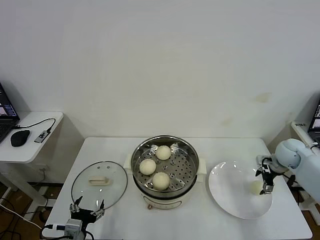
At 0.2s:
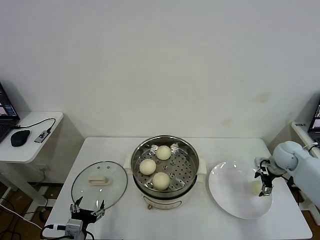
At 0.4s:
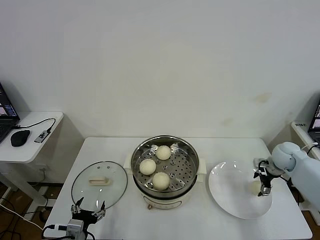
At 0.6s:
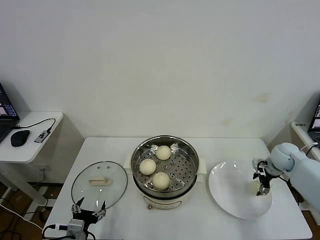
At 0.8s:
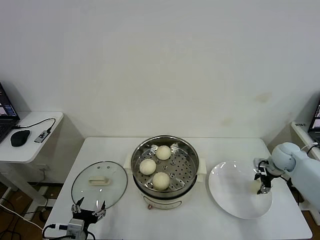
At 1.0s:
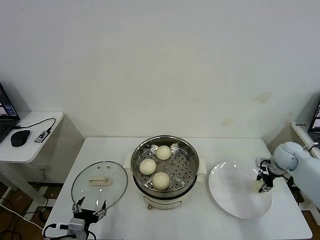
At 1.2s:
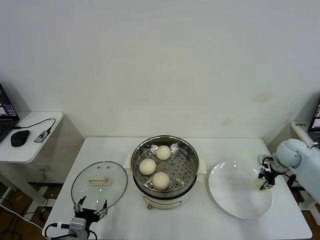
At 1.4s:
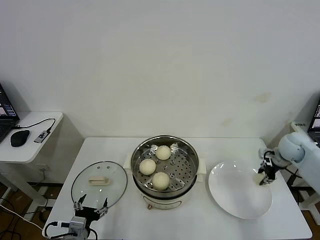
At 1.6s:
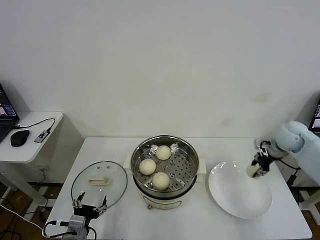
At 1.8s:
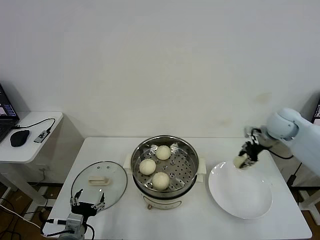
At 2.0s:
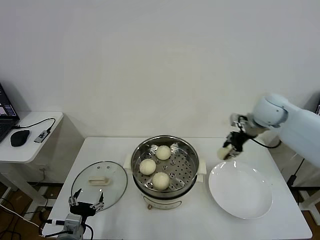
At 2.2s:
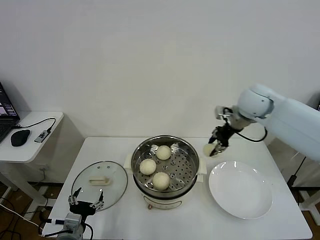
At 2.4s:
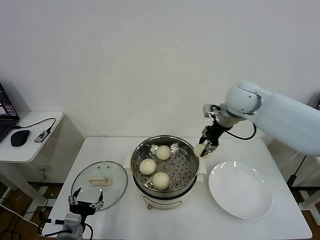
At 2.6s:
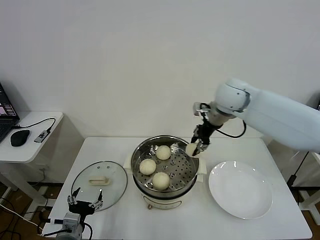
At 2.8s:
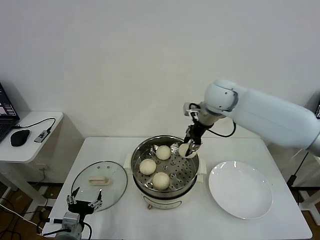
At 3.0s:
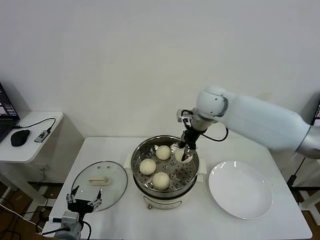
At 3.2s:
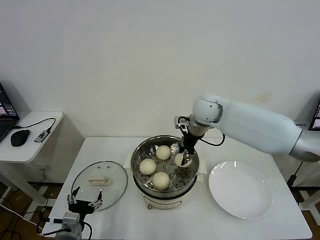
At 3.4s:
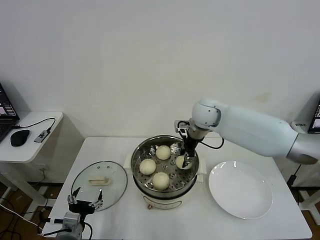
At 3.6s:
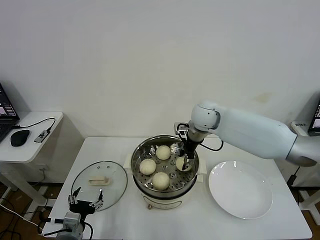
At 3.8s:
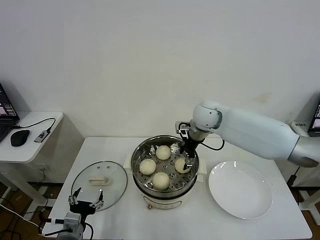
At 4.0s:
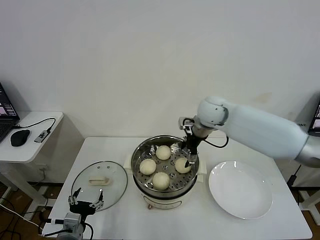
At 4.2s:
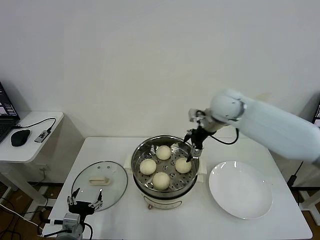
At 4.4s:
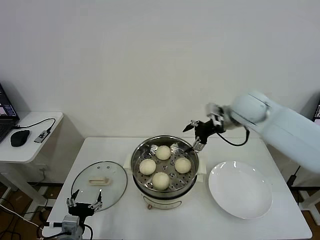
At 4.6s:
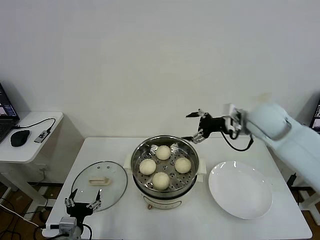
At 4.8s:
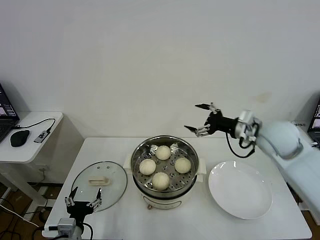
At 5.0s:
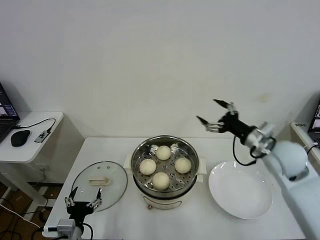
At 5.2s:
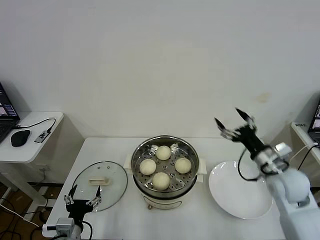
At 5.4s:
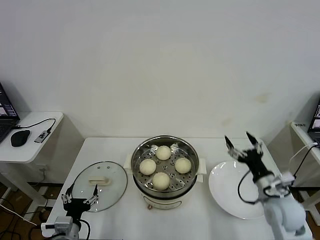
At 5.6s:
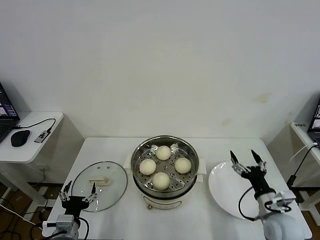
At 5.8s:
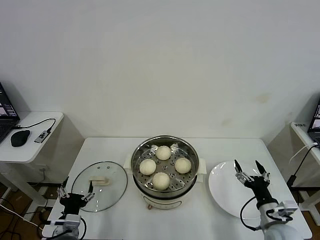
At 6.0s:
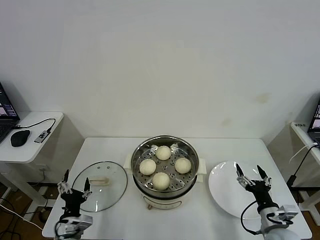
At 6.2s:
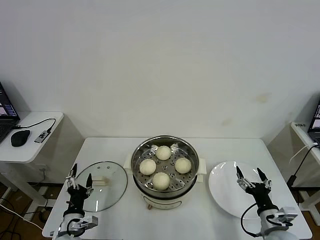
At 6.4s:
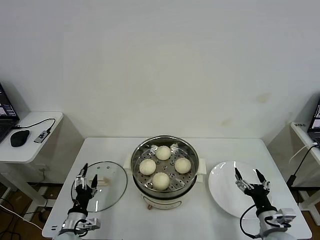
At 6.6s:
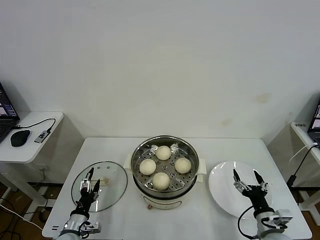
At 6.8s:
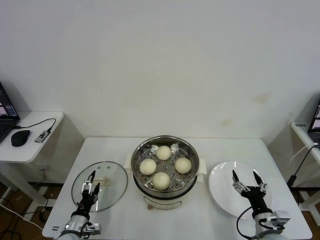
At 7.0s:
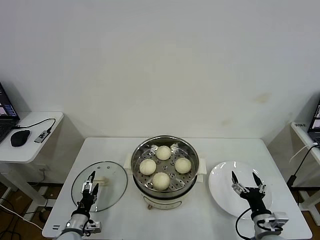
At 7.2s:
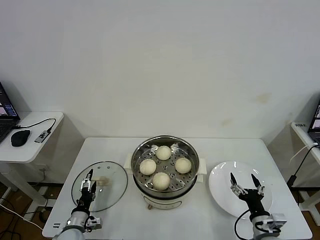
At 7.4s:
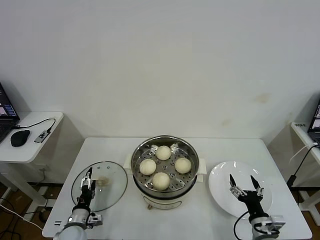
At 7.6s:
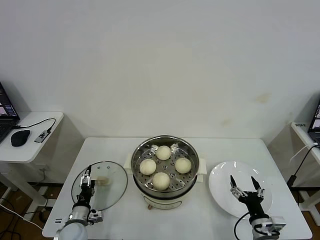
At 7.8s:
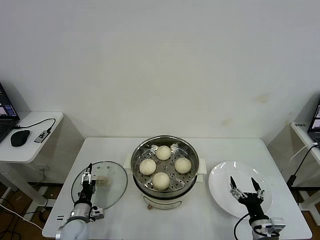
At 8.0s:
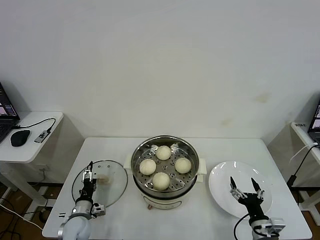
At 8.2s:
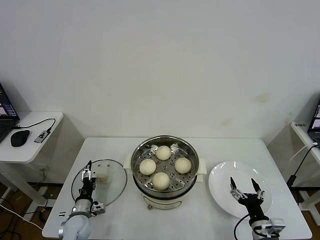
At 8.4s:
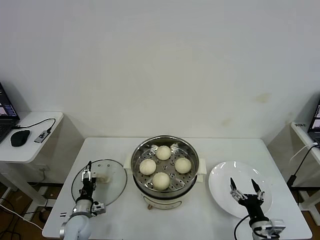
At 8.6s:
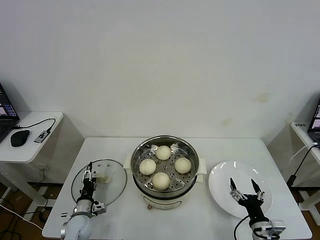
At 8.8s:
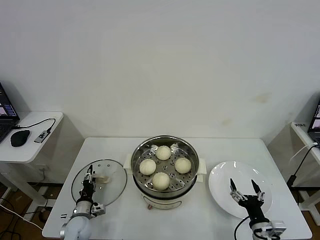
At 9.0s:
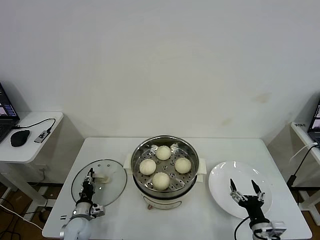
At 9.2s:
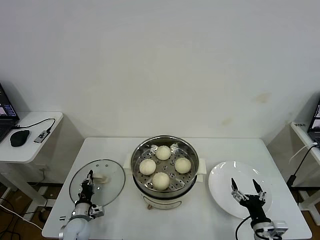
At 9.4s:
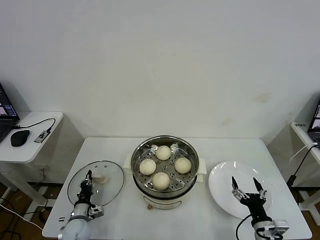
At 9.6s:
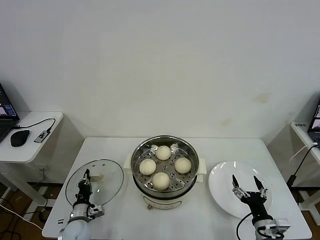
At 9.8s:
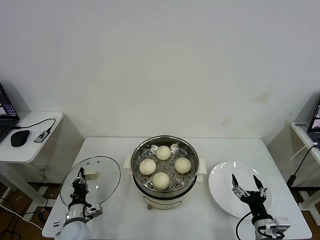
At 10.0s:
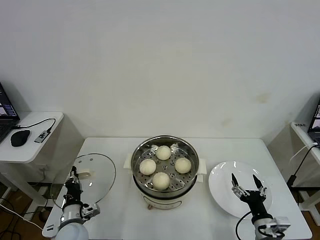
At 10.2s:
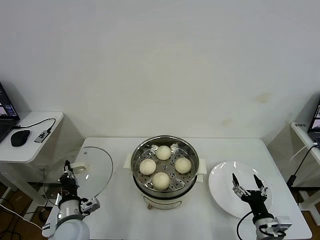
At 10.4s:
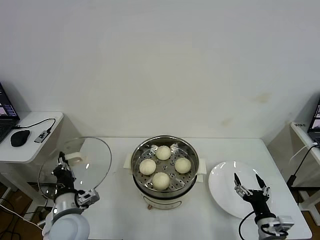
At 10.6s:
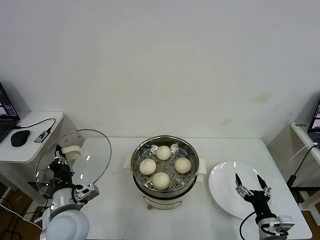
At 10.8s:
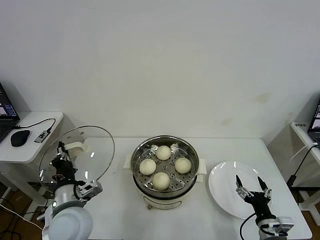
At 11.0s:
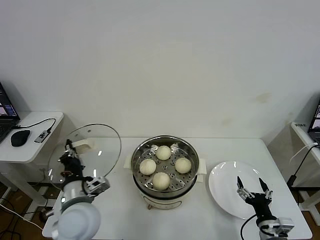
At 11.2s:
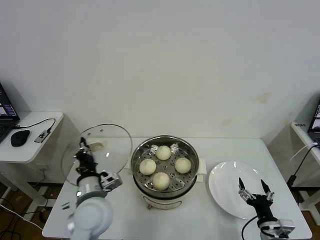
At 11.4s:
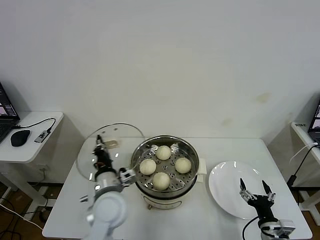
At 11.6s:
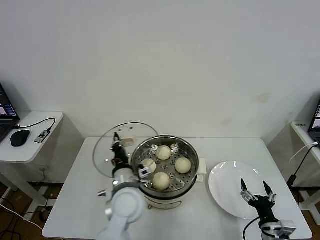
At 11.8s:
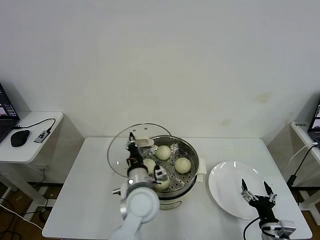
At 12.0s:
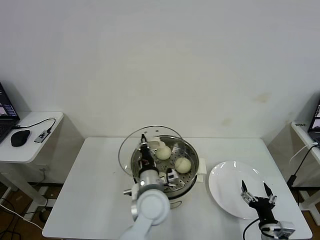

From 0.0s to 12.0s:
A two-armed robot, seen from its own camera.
Task of the whole recording: take steamed baozi put them in steamer then cover it.
Step, from 1.4s to 4.2s: Place the baozi on the steamer with right gripper.
Step, from 4.4s to 9.4s: Grasp the pot lid with left gripper.
From 0.0s to 1.6s: The right gripper shifts about 10 cm upward, and closes its fingers.
From 1.6s to 3.0s: The right gripper heads to the left, covering roughly 30 cm.
From 3.0s to 4.4s: The right gripper goes some 10 cm to the right, and opens.
From 4.4s to 6.0s: The right gripper heads backward and downward, covering some 40 cm.
From 6.0s to 7.6s: The left gripper shifts some 10 cm downward and forward.
From 7.6s to 9.0s: The left gripper closes its fingers.
From 9.0s to 10.4s: The left gripper shifts approximately 20 cm upward, and closes up.
From 10.4s to 12.0s: The left gripper moves to the right, roughly 20 cm.

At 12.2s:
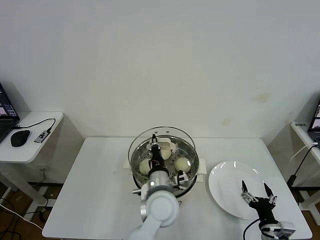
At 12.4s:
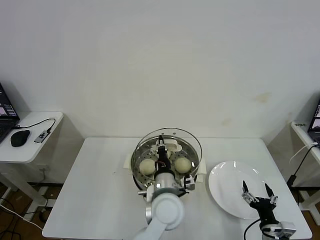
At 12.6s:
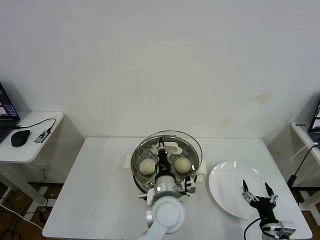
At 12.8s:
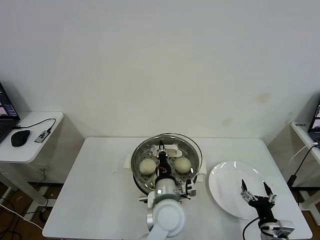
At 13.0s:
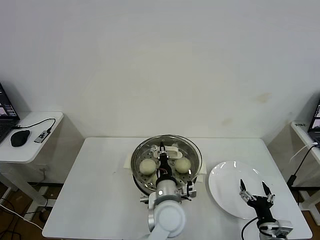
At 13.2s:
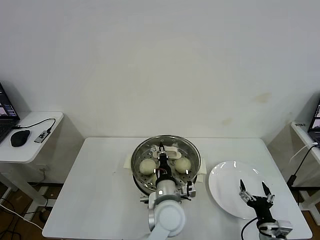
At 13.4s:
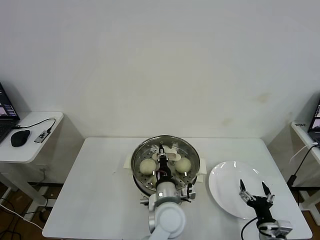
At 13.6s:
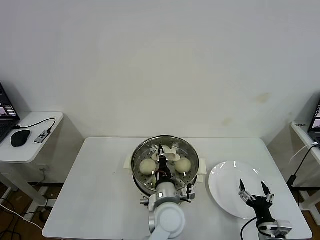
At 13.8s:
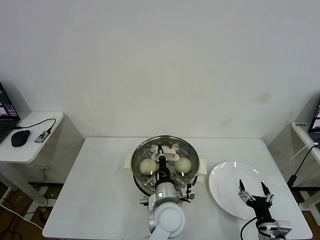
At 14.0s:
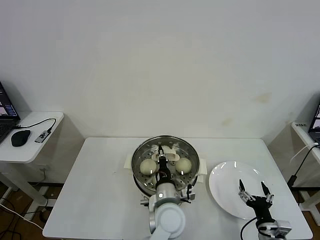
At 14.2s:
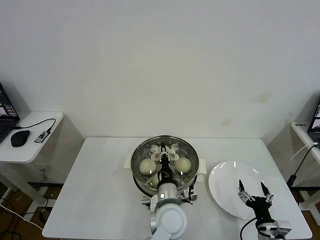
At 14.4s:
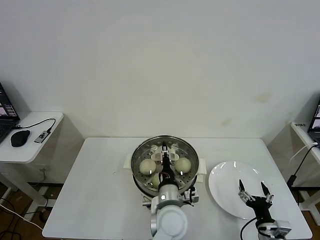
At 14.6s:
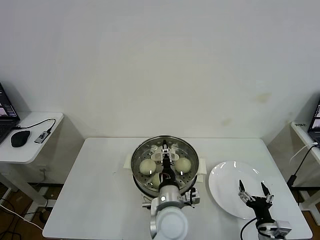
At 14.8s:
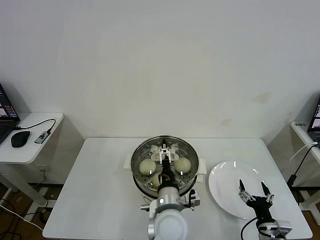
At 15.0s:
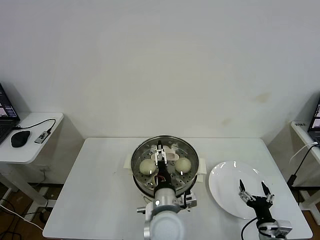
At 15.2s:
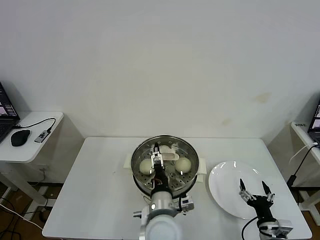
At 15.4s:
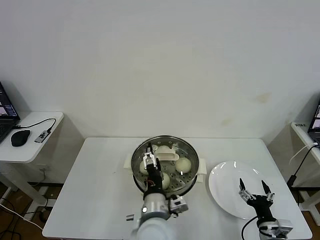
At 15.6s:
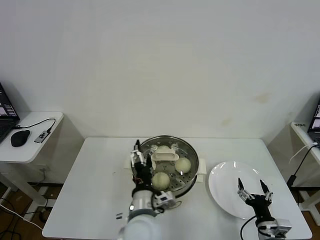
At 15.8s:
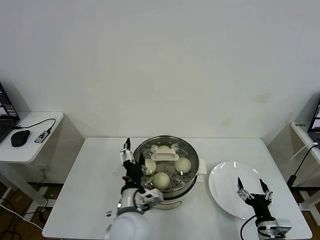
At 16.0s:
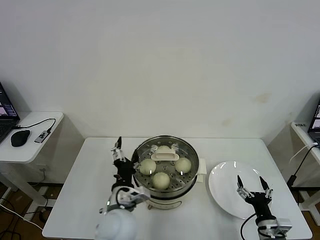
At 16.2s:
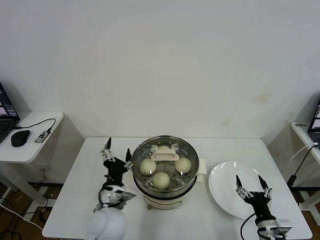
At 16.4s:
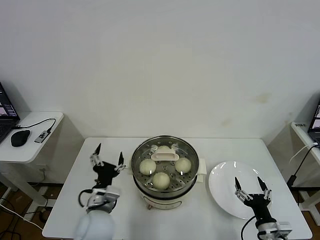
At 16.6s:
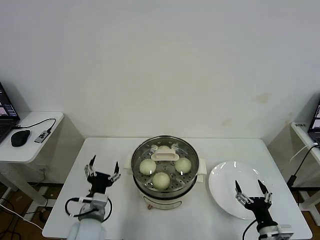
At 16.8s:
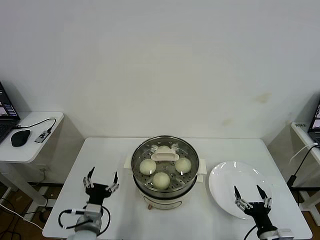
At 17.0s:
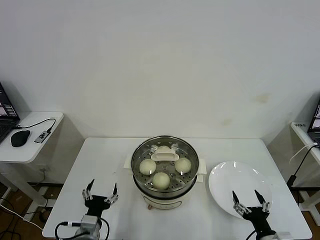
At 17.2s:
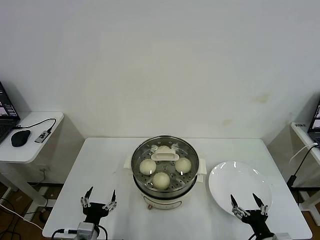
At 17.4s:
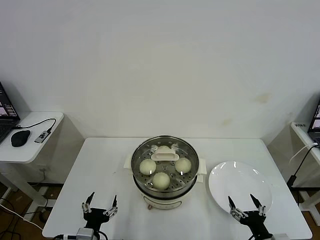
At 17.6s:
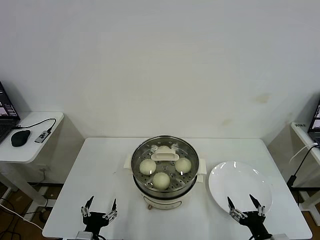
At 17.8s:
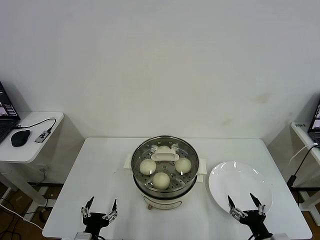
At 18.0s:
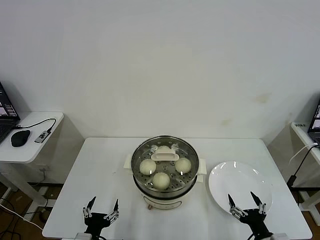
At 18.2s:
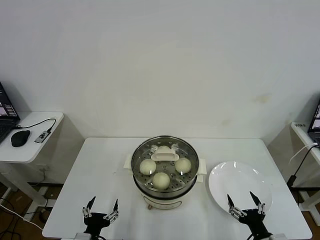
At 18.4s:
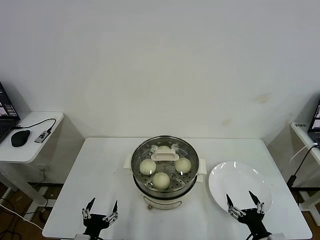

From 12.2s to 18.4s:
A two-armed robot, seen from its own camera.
Task of the whole recording: take steamed baozi put them in steamer then cover it.
Step, from 12.2s to 15.0s: Place the pot lid on the steamer with left gripper.
From 12.2s to 13.8s: The grippers make only small movements.
From 13.8s to 15.4s: The left gripper moves backward, roughly 5 cm, and opens up.
From 15.4s to 16.8s: The left gripper goes some 20 cm to the left.
From 16.8s to 18.4s: The left gripper travels backward by approximately 10 cm.

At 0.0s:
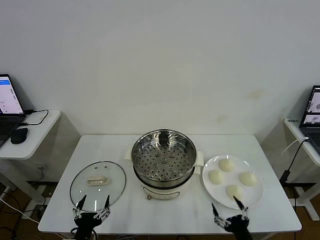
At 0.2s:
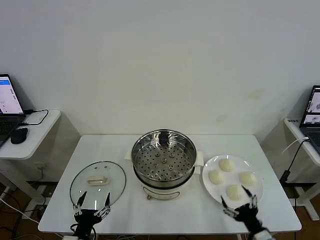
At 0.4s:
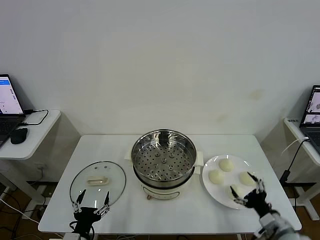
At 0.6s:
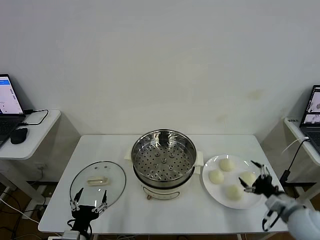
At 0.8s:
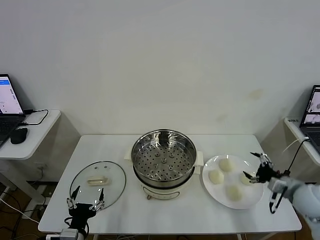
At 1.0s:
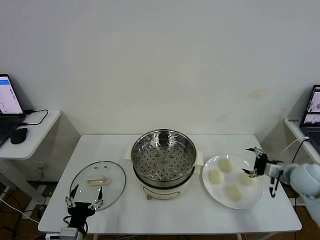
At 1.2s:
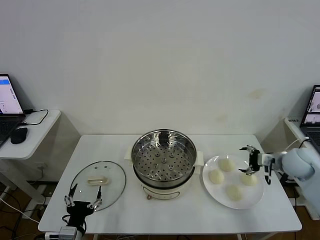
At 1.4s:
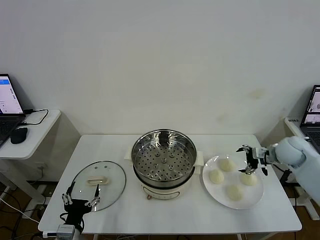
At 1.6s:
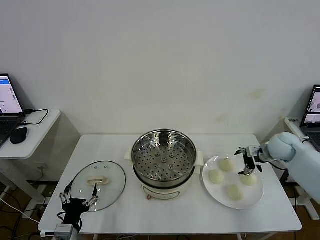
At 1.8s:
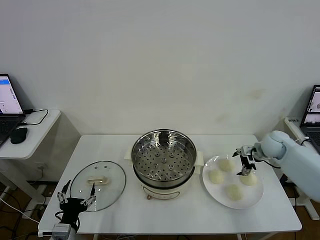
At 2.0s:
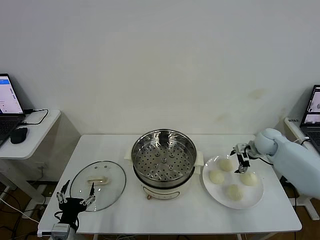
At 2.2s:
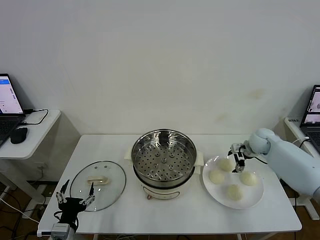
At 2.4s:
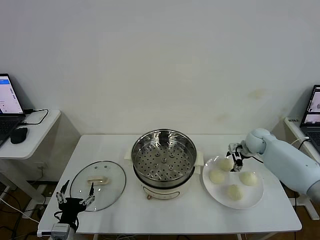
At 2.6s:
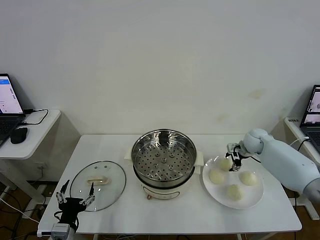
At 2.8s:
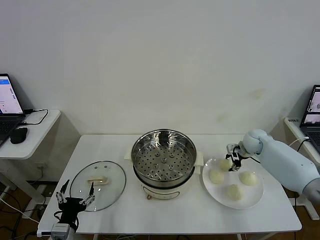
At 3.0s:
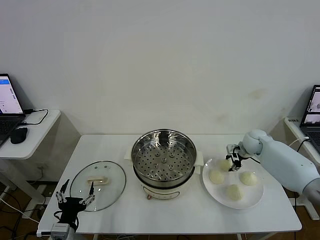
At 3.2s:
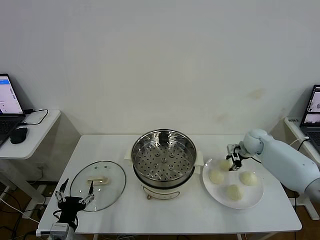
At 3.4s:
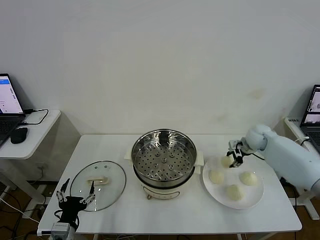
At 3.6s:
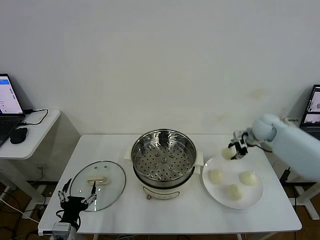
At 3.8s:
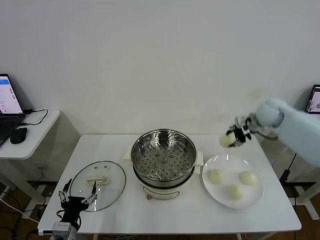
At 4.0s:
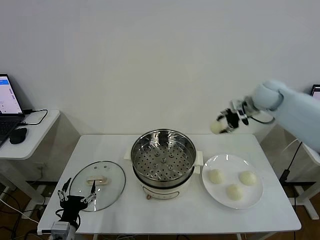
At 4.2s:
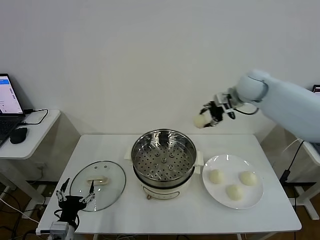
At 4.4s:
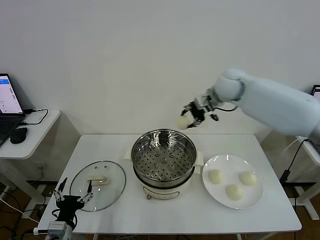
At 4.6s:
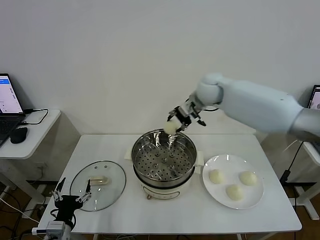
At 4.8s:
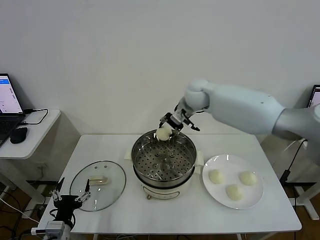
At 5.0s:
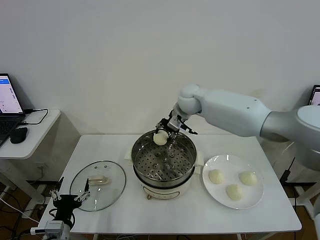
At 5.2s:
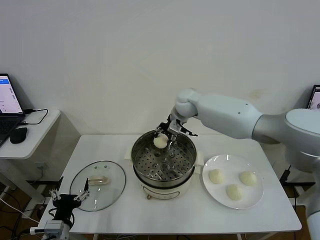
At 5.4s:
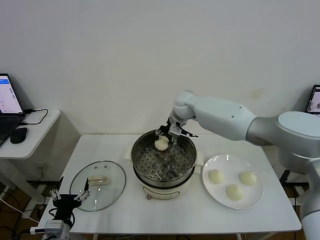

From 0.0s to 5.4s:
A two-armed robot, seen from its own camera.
Task of the whole recording: take steamed baozi put them in steamer then cover it.
Step, from 0.0s to 2.8s: Grasp the baozi in the plate with right gripper.
From 1.4s to 2.8s: The right gripper travels forward, downward and to the left by some 10 cm, and closes.
From 2.8s to 4.0s: The right gripper goes about 25 cm upward.
From 4.0s to 5.4s: The right gripper heads to the left and downward, covering approximately 25 cm.
